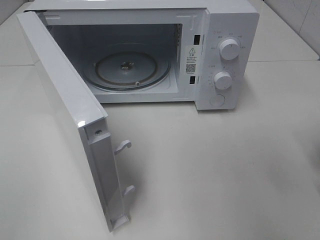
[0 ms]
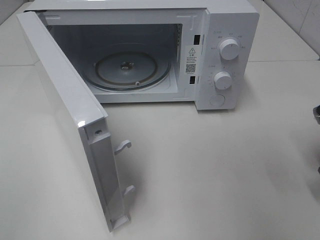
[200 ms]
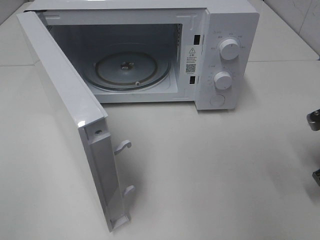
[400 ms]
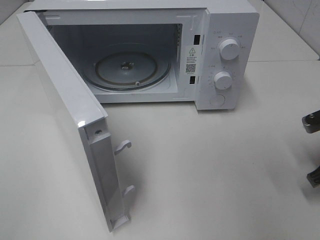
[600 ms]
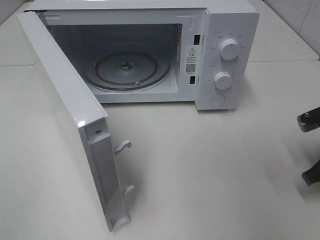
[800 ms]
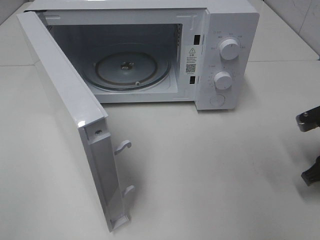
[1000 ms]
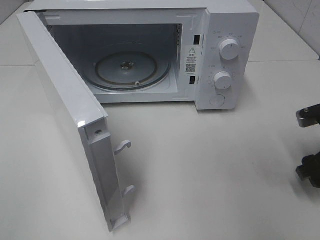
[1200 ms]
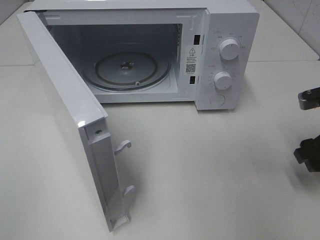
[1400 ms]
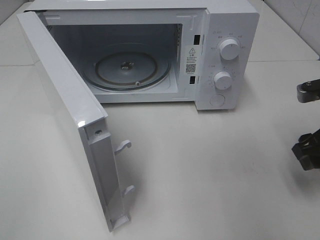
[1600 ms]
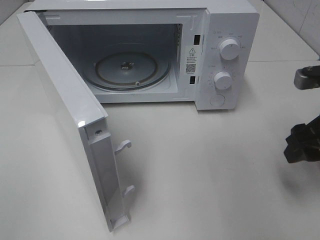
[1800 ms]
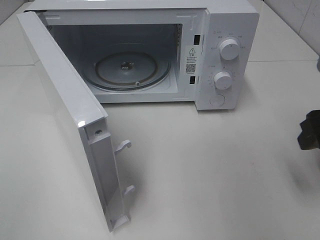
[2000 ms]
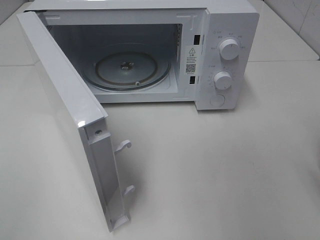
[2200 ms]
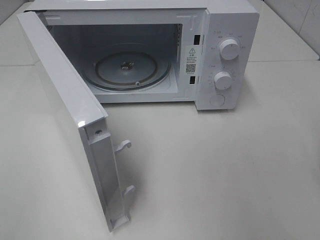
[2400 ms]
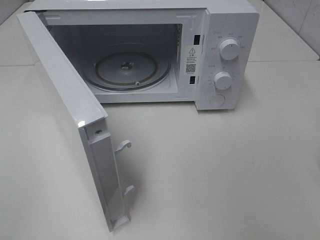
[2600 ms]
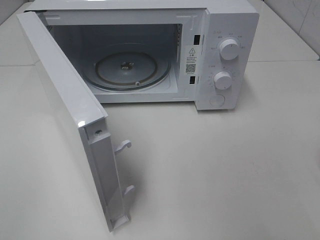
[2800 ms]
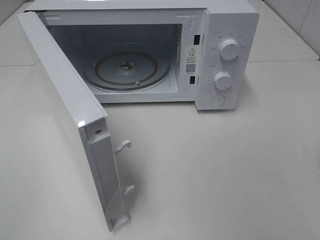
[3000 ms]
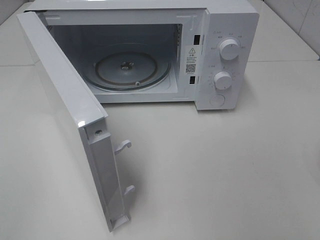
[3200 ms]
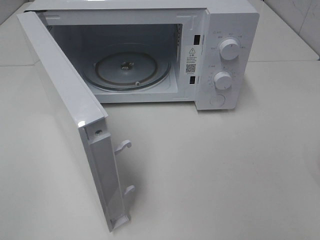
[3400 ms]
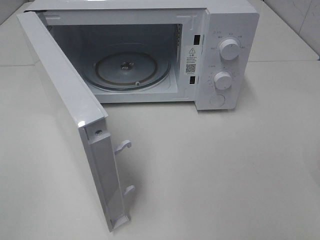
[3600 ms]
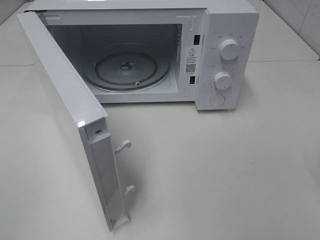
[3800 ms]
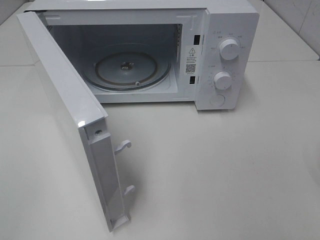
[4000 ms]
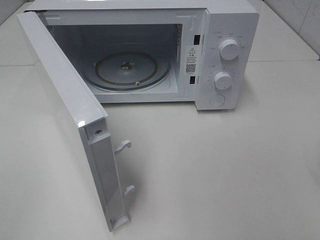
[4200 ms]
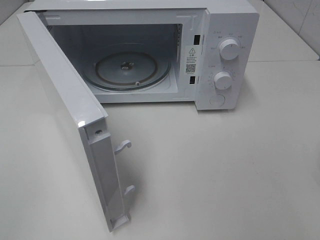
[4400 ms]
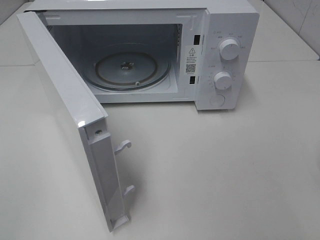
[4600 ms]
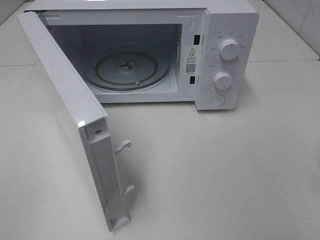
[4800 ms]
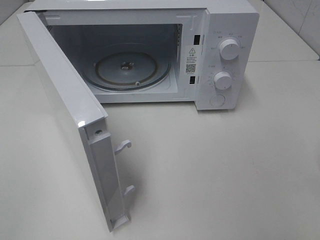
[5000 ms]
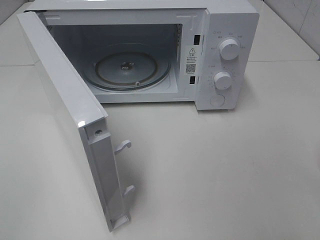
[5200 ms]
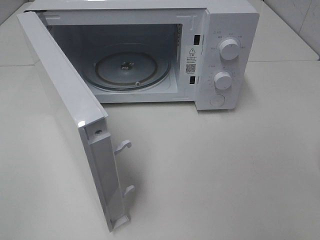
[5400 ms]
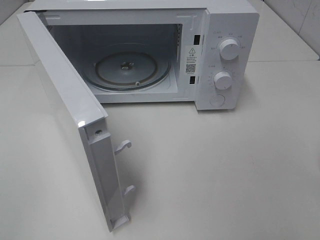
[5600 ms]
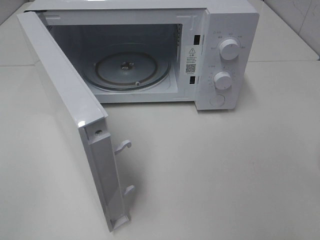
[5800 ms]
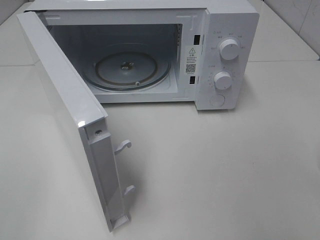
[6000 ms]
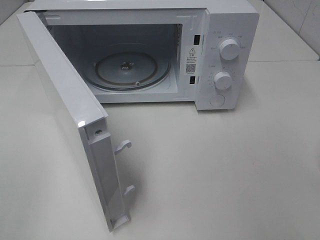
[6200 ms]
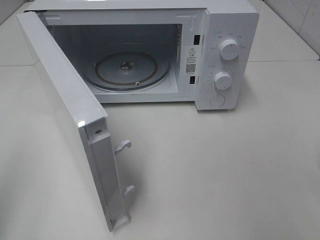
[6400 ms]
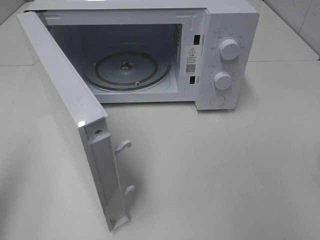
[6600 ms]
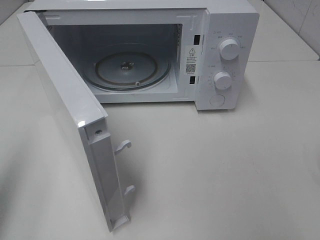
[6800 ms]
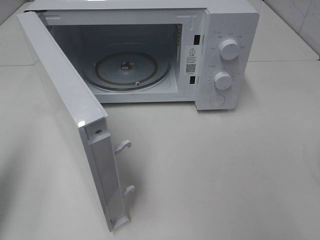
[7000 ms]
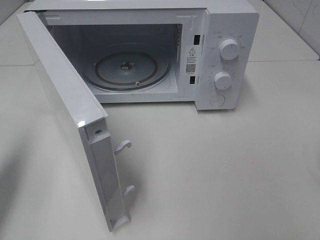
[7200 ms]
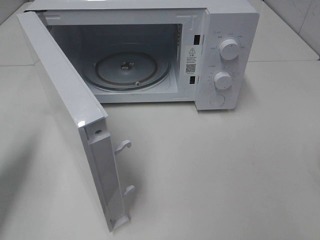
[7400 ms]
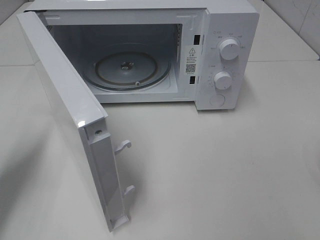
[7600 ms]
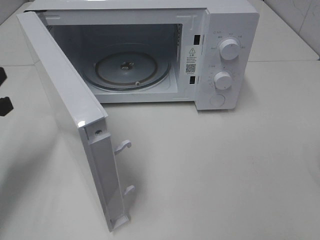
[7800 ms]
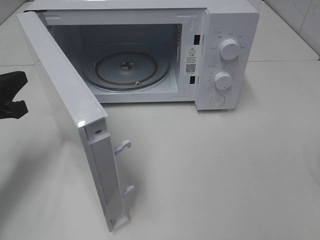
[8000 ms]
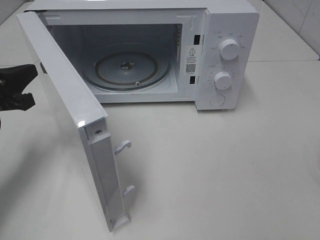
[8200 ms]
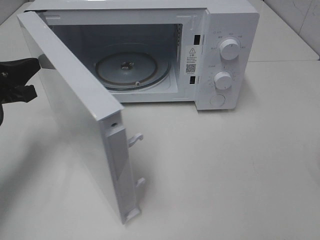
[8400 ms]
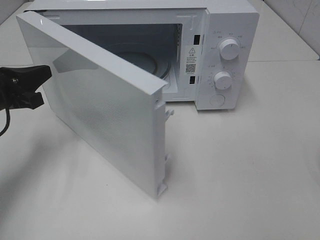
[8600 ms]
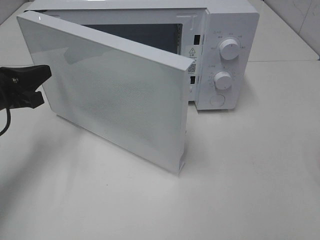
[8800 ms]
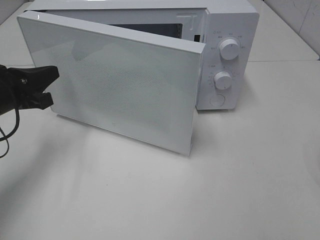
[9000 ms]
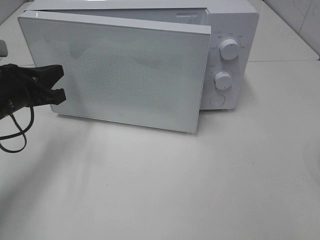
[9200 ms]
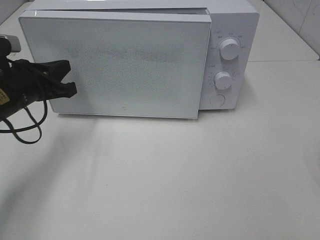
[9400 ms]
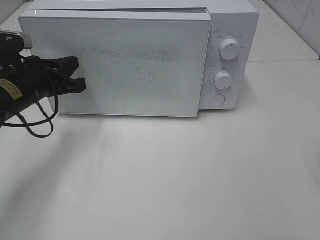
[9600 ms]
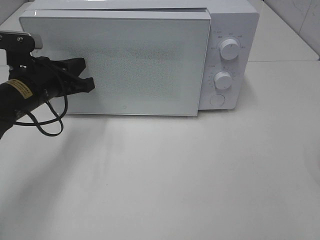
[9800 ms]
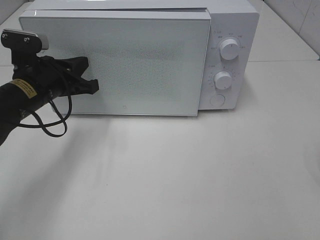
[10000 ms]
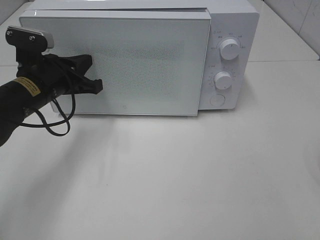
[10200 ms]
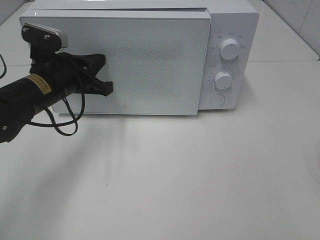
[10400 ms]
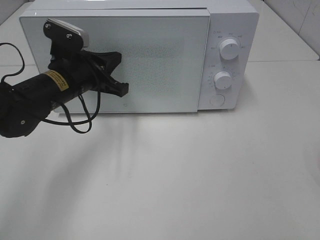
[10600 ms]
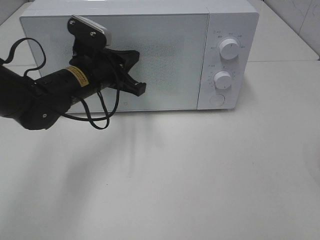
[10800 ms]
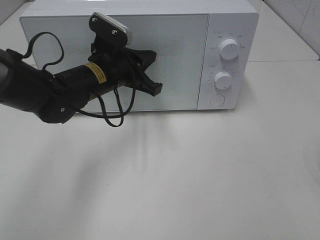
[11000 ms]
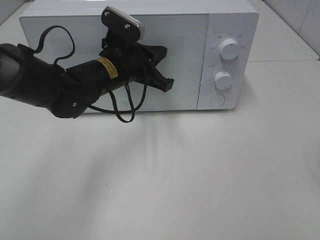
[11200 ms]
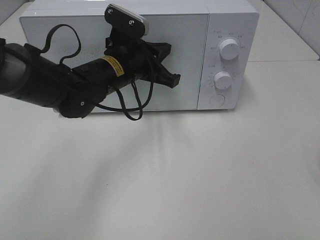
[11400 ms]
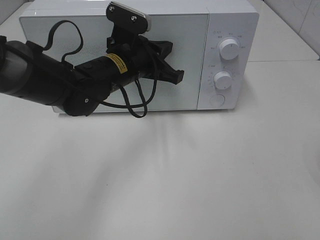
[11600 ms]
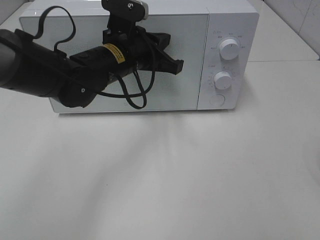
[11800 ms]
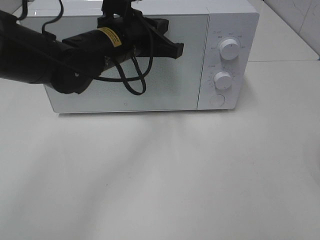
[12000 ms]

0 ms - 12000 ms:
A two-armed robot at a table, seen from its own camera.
Task of the whole recording: Heat the burger.
Step, 1000 ms - 10800 ms: Left hand: close the microwave door.
0 ms - 1600 ms: The right gripper opens.
1600 ms - 3000 ms: The right gripper moves backward and upward, some 25 cm.
6000 ms - 7600 ms: The left gripper is displaced forward and downward by approximately 25 cm, and closes its fingers.
7600 ms - 9000 ms: The left gripper shifts approximately 10 cm forward and to the right.
9000 ms - 10400 ms: The left gripper moves to the right, about 10 cm.
10400 ms - 12000 ms: The left gripper is displaced to the right and upward by roughly 15 cm.

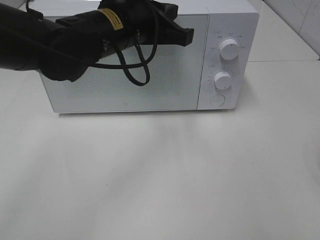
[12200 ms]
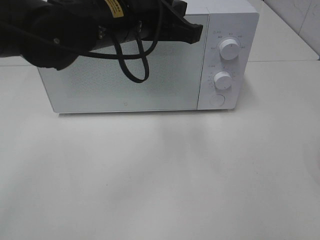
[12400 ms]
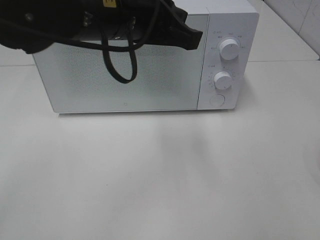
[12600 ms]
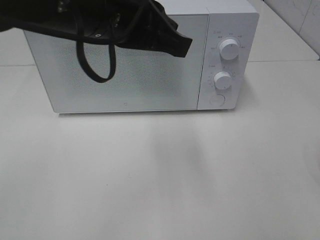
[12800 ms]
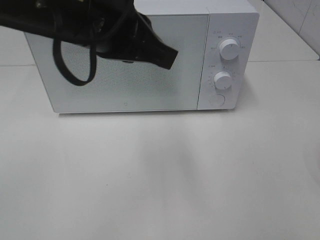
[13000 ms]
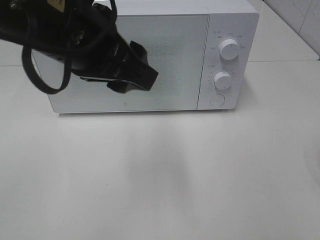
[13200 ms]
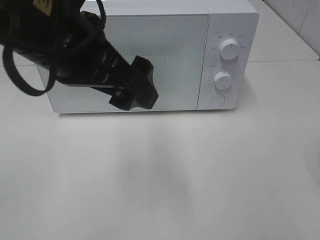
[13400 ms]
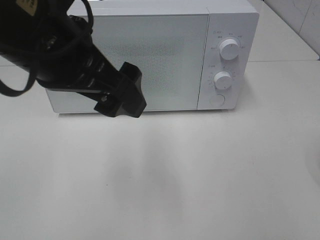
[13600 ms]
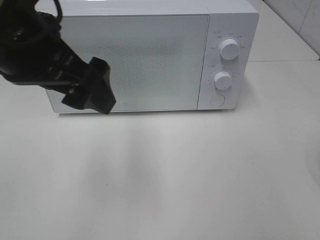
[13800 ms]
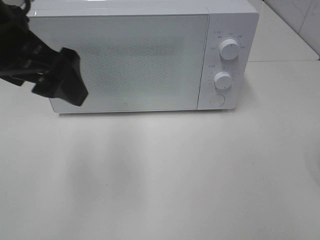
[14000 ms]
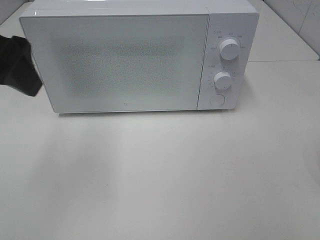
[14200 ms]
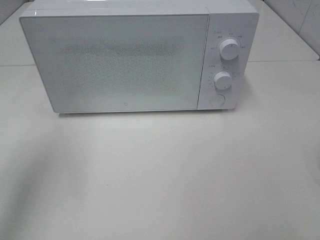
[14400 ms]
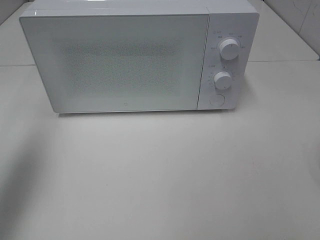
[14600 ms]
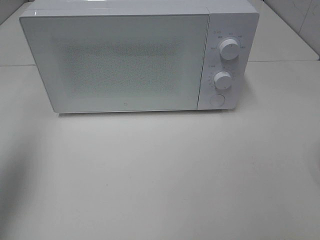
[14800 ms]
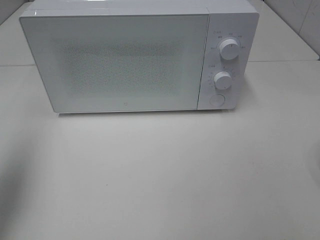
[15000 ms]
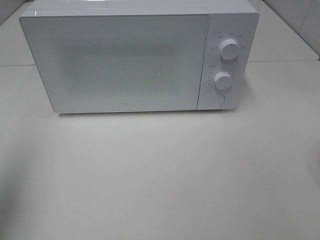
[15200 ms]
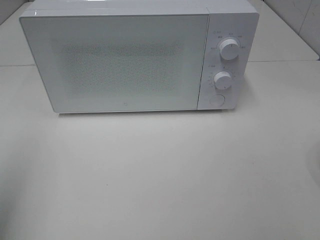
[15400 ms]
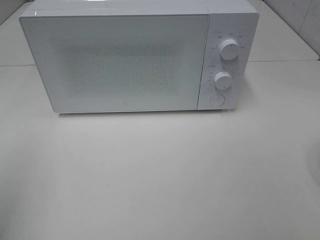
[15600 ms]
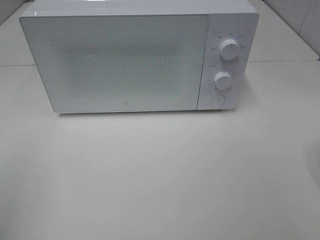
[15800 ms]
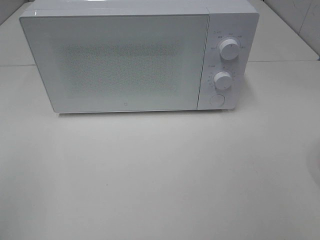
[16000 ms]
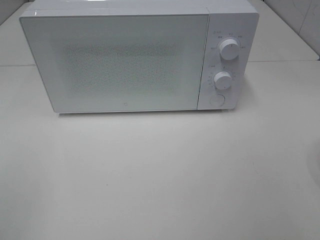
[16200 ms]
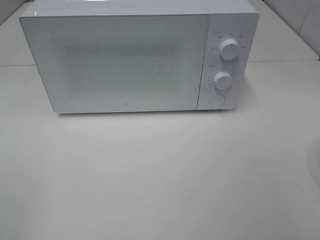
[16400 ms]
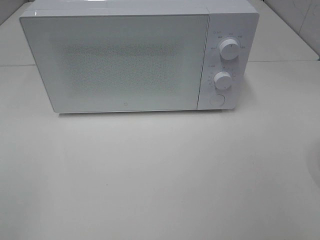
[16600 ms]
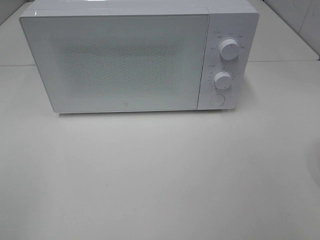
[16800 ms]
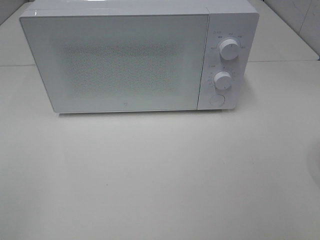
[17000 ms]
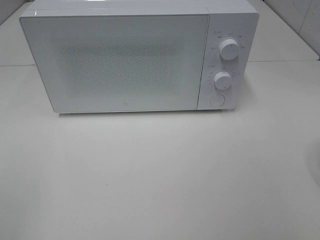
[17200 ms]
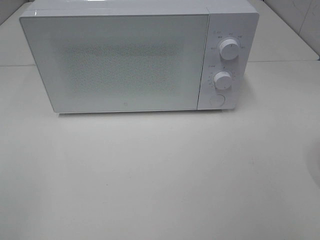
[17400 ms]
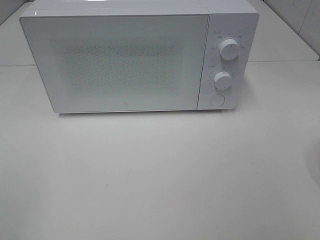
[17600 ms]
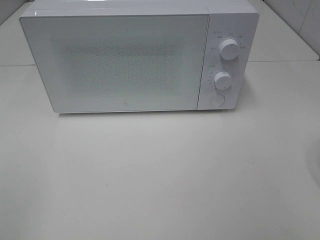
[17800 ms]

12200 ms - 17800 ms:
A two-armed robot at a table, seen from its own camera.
Task of the whole recording: Heat the burger.
12200 ms - 13600 ms: The left gripper moves backward, to the left and upward, roughly 15 cm, and opens.
13600 ms - 15000 ms: The left gripper goes roughly 25 cm to the left.
15000 ms - 16400 ms: The left gripper is displaced backward by about 20 cm.
16400 ms - 17800 ms: Neither gripper changes place.

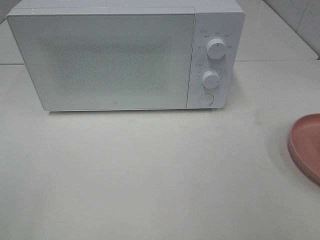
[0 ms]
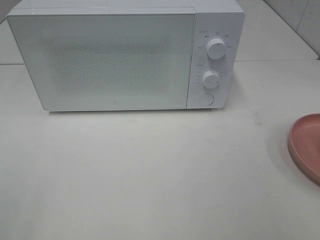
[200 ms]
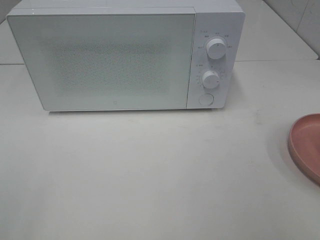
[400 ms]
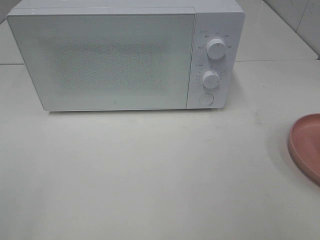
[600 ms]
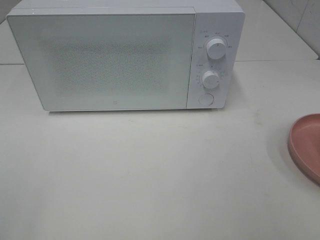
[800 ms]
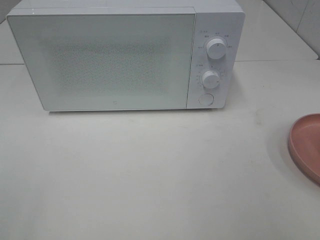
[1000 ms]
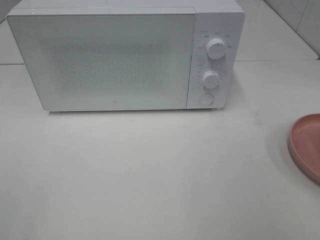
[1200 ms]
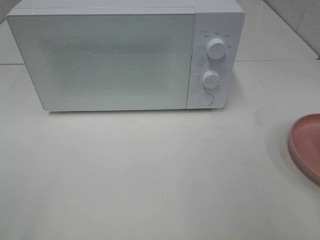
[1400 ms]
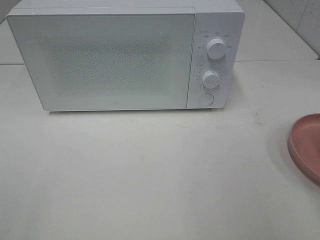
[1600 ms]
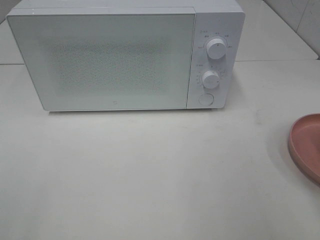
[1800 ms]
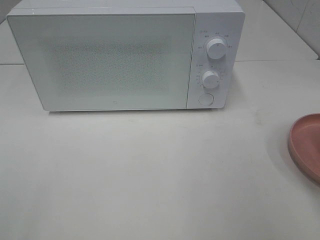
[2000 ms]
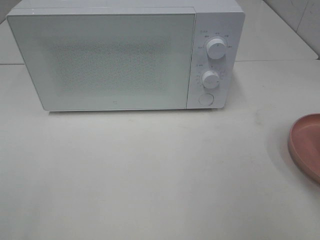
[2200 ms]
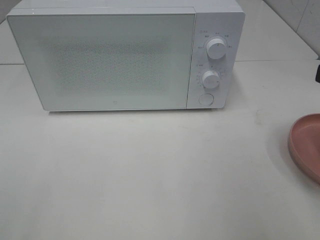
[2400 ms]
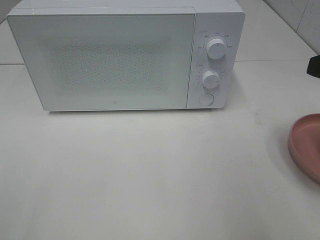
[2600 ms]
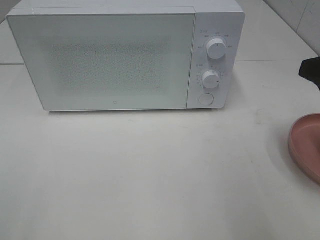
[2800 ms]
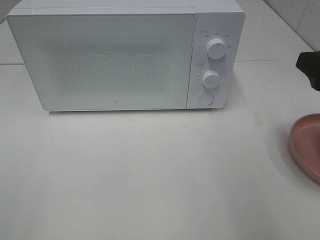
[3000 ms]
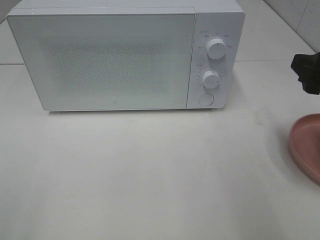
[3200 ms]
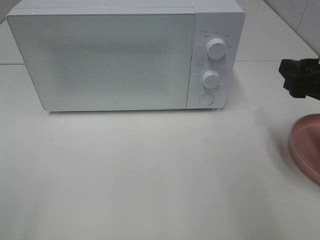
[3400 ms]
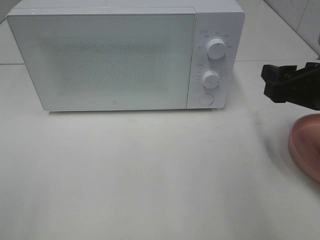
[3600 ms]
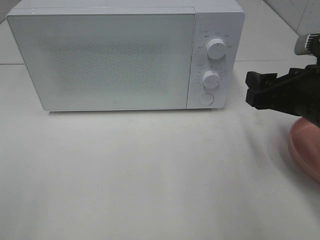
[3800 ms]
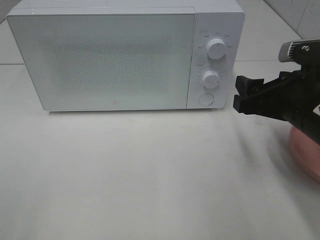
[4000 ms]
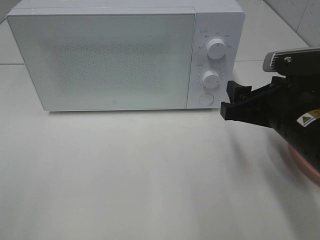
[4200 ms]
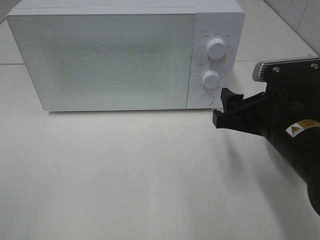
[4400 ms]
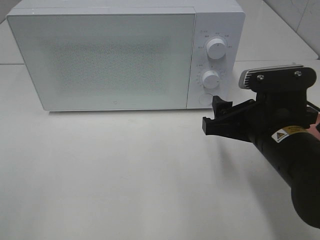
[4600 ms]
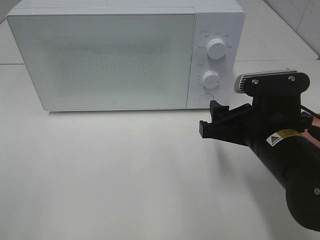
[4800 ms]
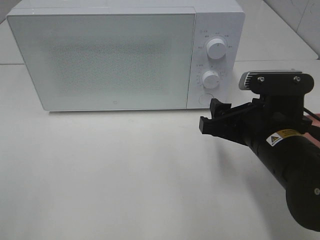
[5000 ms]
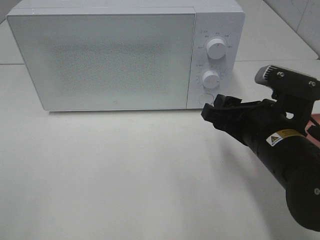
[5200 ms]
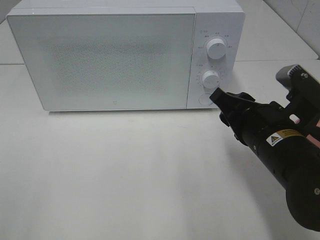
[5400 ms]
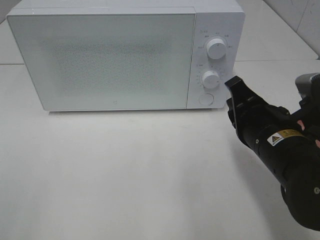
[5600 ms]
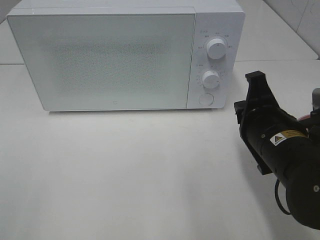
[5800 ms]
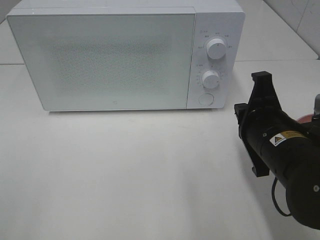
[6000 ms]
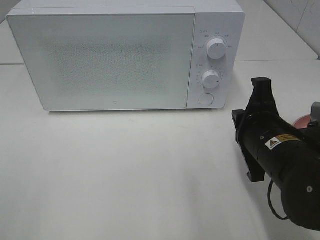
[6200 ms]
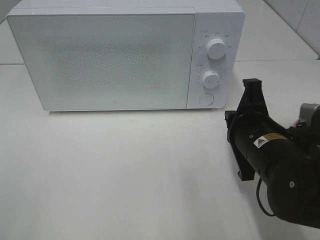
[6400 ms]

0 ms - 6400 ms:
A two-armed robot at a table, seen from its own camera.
Task of the whole recording: Heat the burger.
1600 ms - 3200 ms: The right gripper goes roughly 15 cm forward and downward.
3200 ms - 4800 ms: The right gripper goes roughly 15 cm to the left and downward.
4800 ms - 6400 ms: The right gripper closes up.
